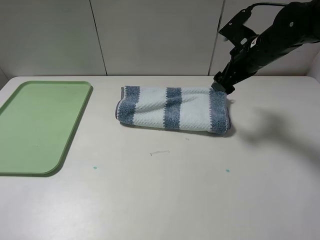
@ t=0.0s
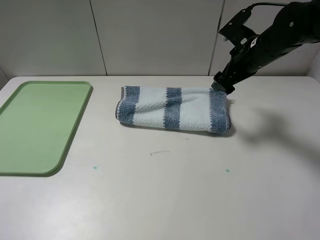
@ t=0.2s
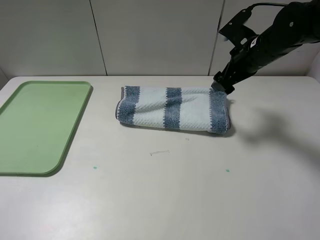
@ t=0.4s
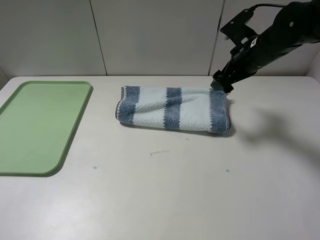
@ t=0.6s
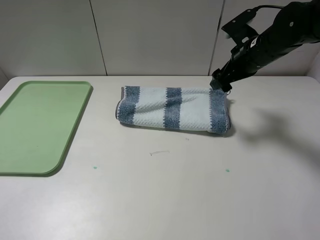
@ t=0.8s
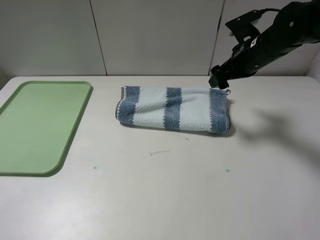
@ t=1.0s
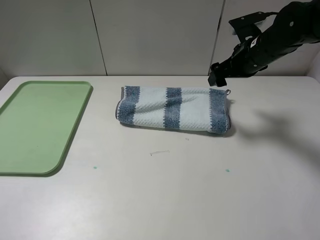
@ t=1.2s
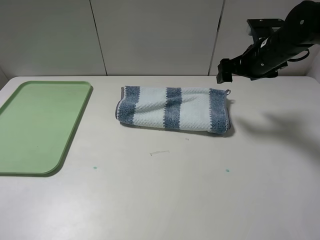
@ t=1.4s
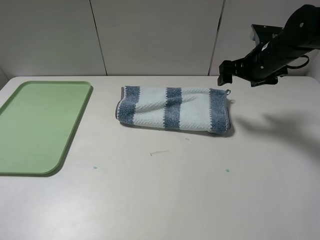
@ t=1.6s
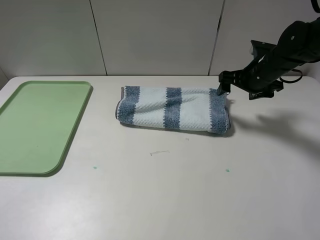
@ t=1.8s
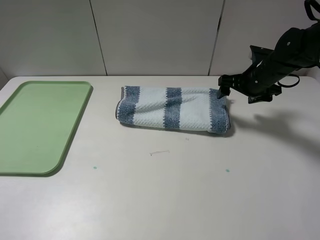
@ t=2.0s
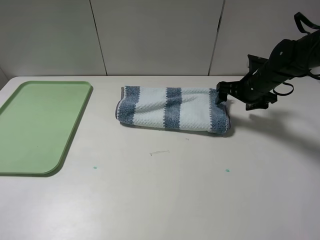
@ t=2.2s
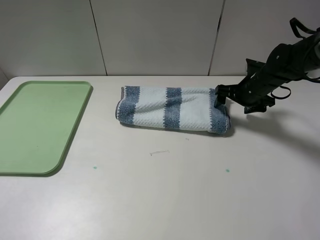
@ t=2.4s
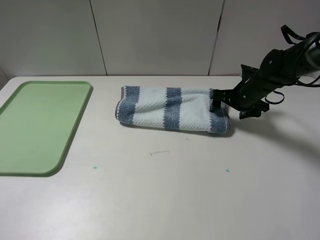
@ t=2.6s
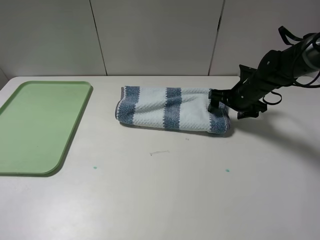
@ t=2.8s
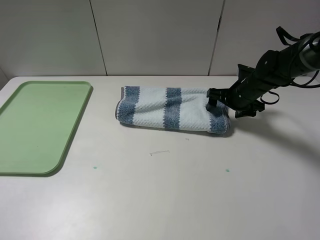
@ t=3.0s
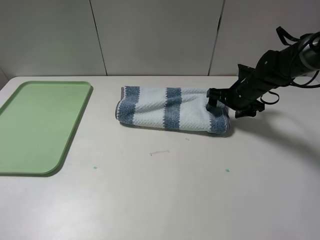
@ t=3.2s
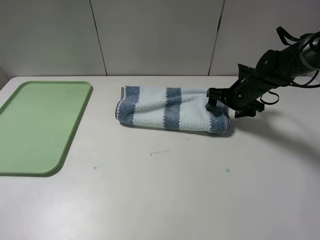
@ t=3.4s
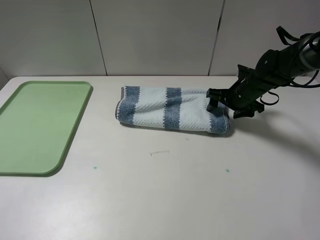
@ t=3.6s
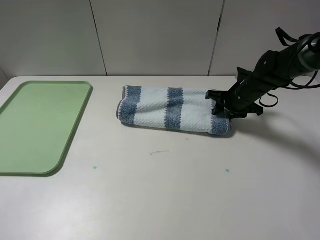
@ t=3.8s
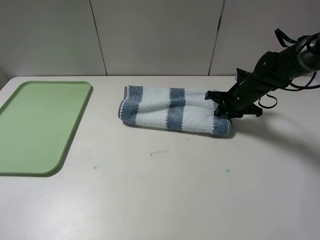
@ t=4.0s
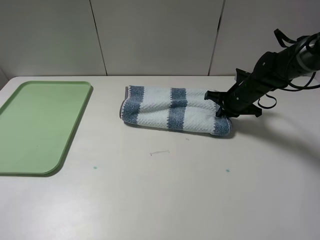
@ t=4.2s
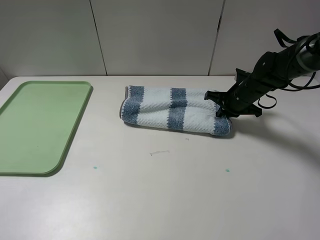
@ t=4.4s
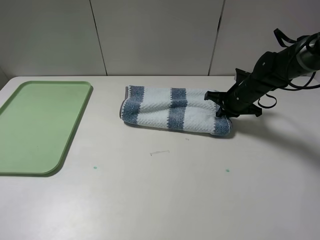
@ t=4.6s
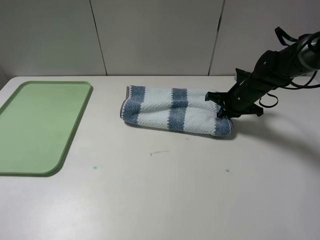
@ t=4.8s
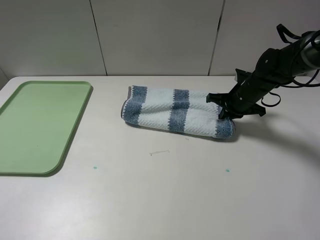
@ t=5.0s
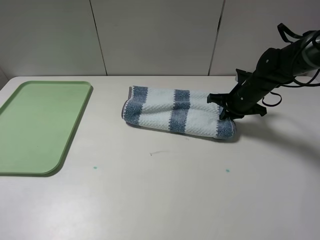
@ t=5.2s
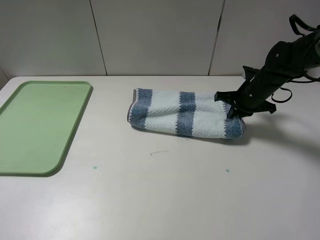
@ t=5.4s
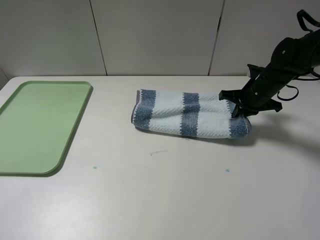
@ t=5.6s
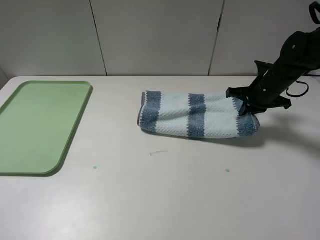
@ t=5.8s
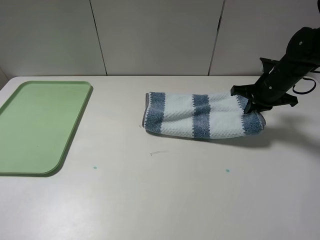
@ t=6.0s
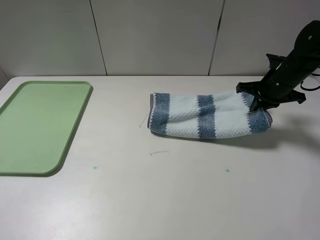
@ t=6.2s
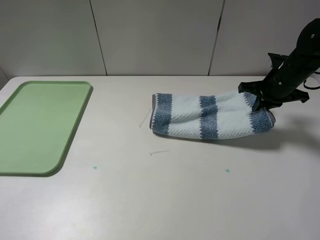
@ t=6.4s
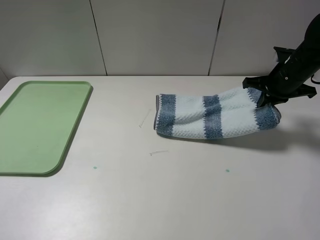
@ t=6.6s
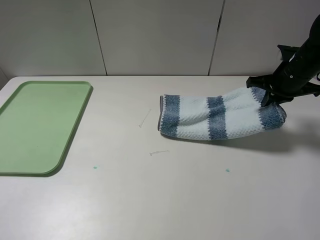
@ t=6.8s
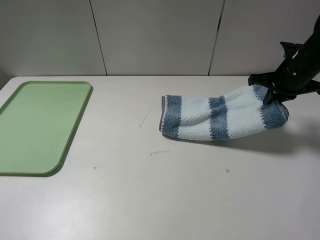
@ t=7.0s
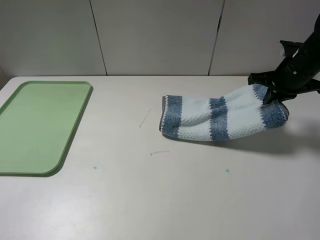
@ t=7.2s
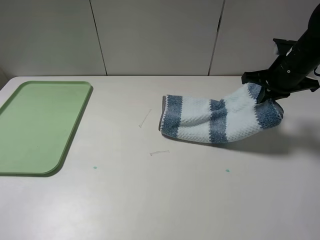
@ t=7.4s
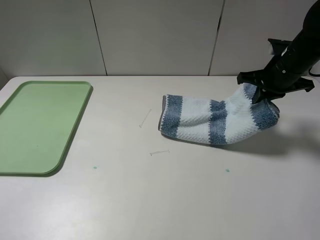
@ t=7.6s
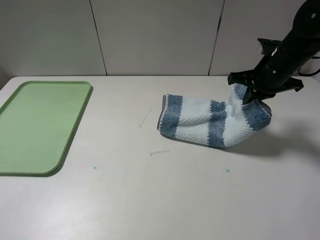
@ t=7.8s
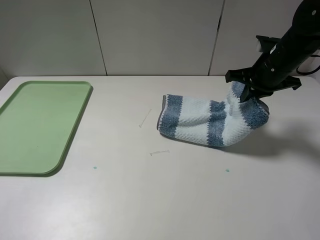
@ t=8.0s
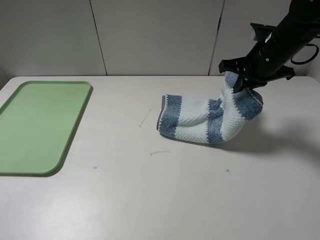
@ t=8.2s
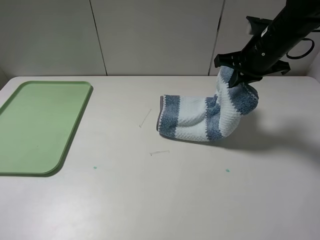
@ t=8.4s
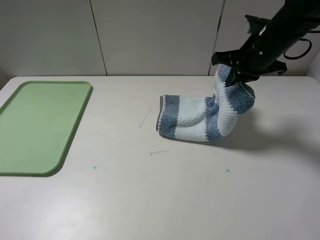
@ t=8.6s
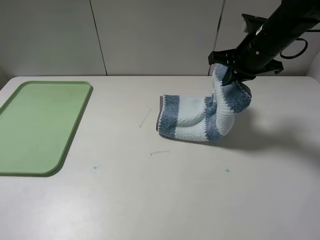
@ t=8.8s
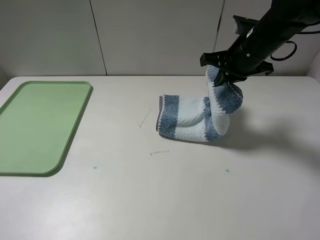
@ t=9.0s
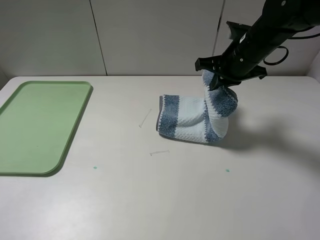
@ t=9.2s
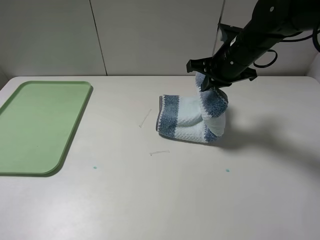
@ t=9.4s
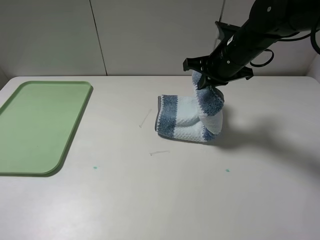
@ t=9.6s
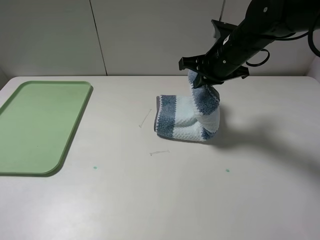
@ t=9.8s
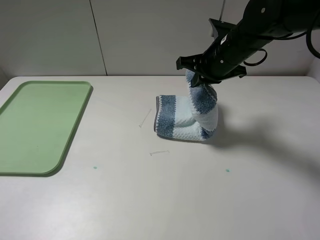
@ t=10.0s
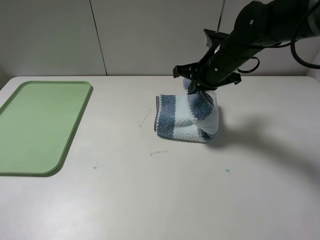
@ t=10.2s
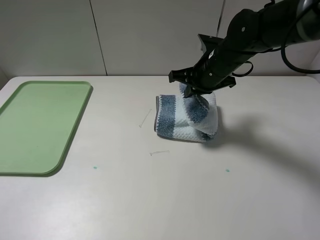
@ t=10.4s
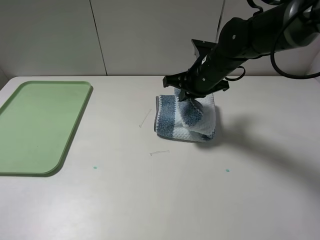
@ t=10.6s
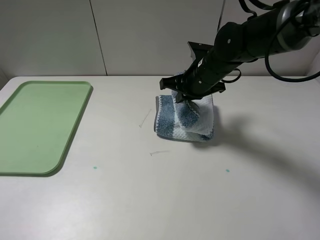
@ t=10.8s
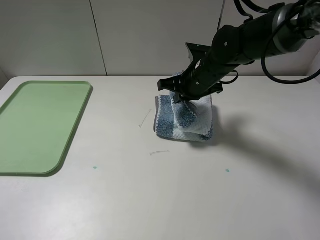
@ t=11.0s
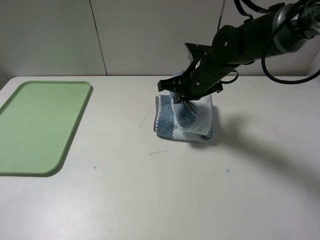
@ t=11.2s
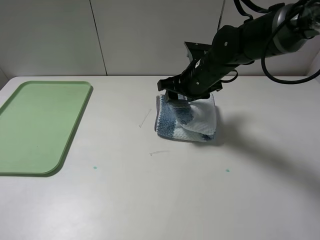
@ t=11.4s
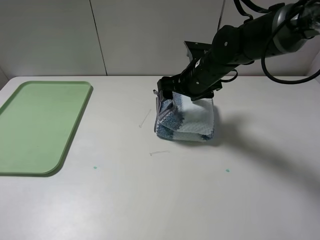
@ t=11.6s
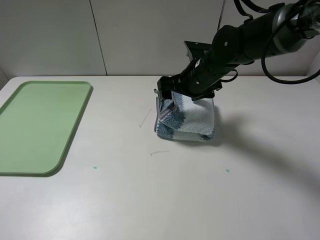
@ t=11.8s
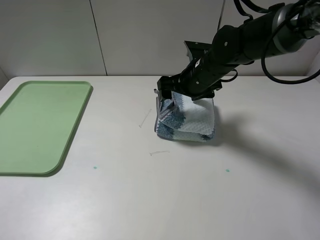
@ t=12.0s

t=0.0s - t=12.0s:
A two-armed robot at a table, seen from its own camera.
Step, t=0.0s - t=4.6s: Grasp the blue white towel with the right gripper.
t=1.6s - t=3.0s: The right gripper moves downward, some 10 cm.
t=3.0s - t=4.4s: The right gripper closes up.
t=4.4s - t=6.0s: The right gripper travels upward and to the right by about 10 cm.
t=6.0s - t=7.6s: The right gripper heads upward, covering about 5 cm.
t=7.6s - t=9.0s: The right gripper shifts approximately 10 cm to the left.
t=9.0s - t=10.4s: The right gripper is displaced to the left by some 5 cm.
t=10.4s - t=12.0s: The right gripper opens.

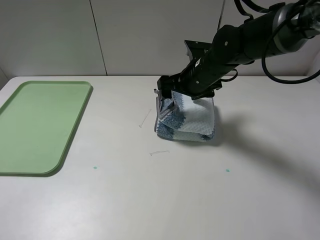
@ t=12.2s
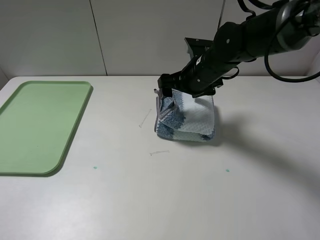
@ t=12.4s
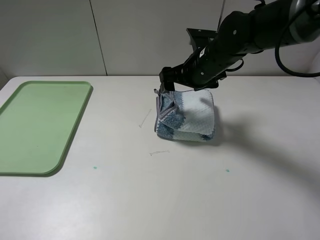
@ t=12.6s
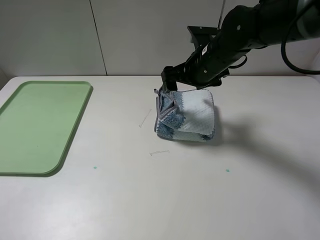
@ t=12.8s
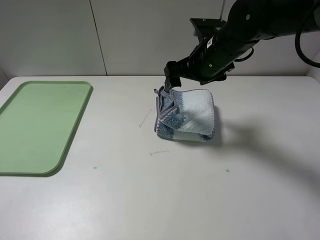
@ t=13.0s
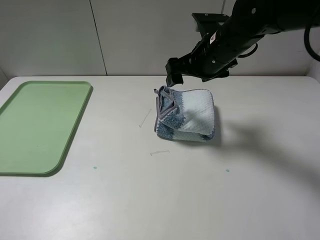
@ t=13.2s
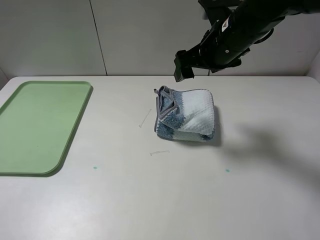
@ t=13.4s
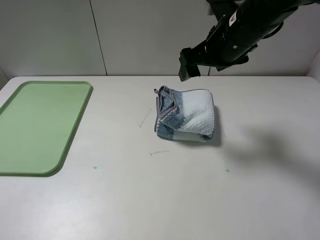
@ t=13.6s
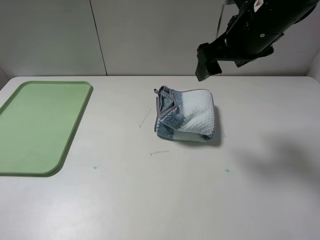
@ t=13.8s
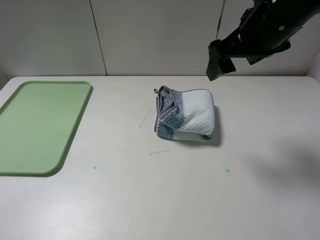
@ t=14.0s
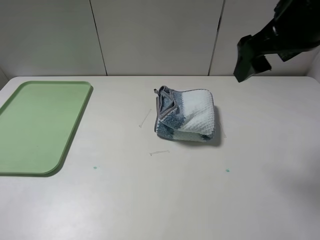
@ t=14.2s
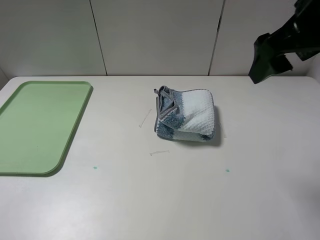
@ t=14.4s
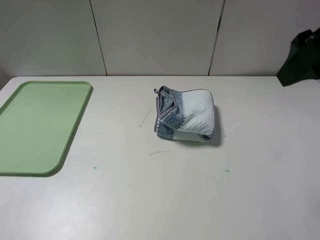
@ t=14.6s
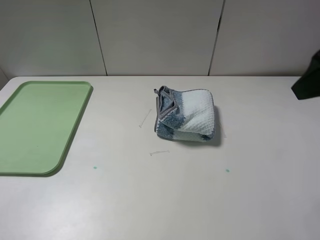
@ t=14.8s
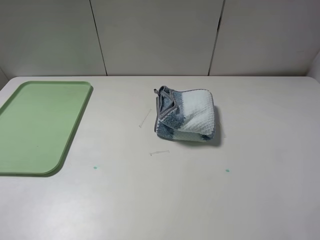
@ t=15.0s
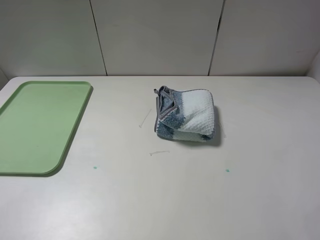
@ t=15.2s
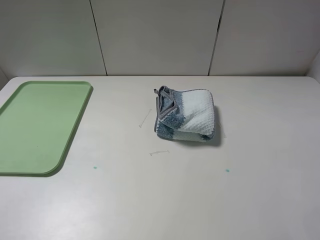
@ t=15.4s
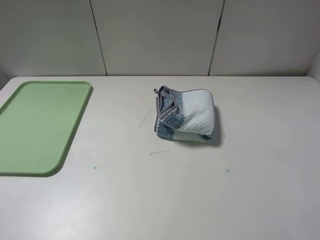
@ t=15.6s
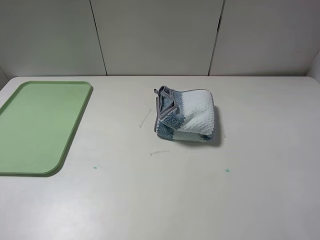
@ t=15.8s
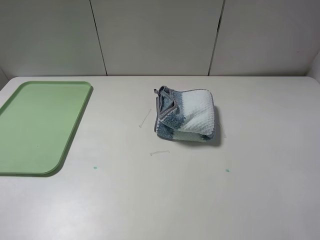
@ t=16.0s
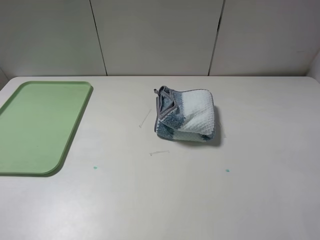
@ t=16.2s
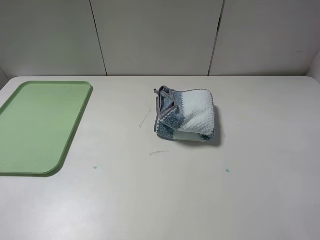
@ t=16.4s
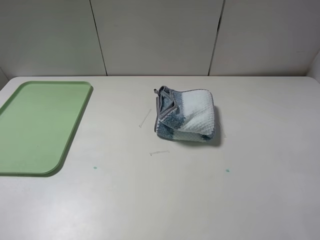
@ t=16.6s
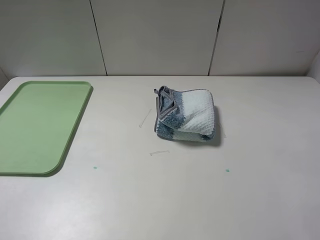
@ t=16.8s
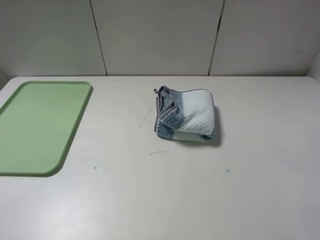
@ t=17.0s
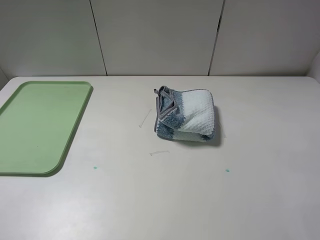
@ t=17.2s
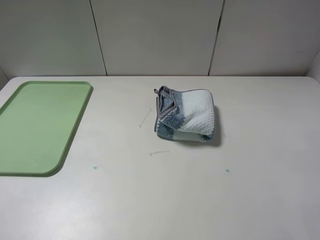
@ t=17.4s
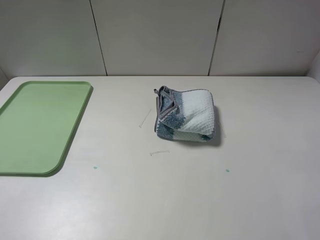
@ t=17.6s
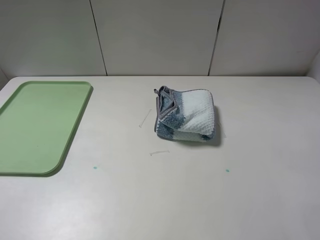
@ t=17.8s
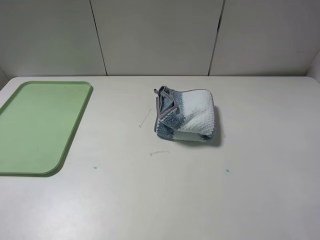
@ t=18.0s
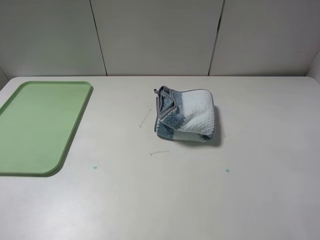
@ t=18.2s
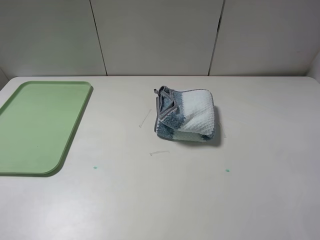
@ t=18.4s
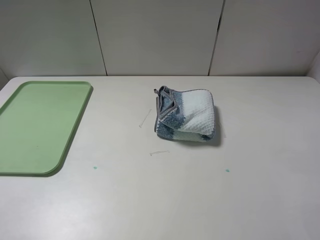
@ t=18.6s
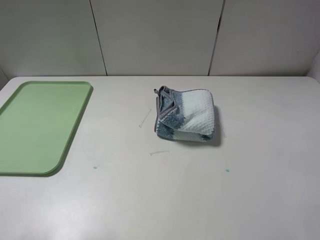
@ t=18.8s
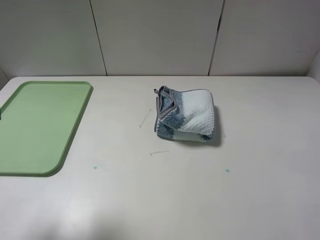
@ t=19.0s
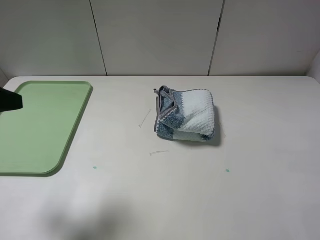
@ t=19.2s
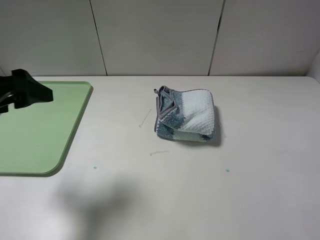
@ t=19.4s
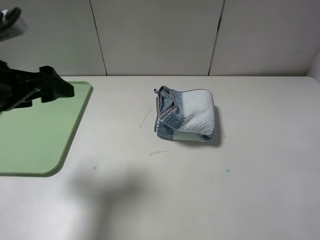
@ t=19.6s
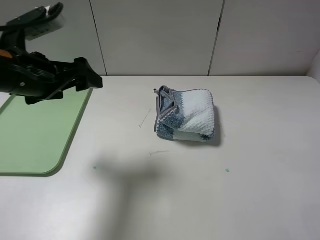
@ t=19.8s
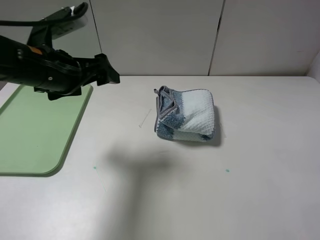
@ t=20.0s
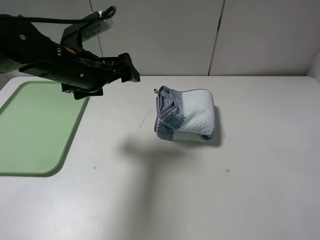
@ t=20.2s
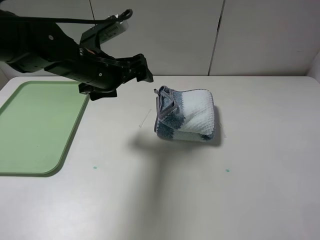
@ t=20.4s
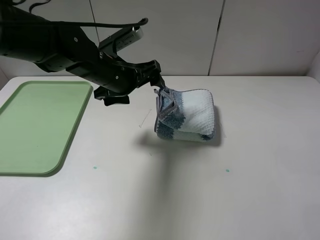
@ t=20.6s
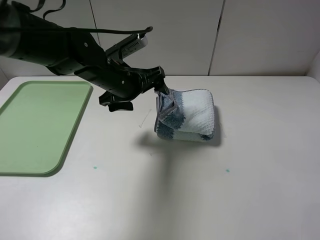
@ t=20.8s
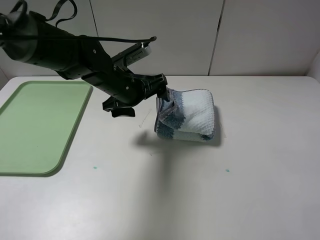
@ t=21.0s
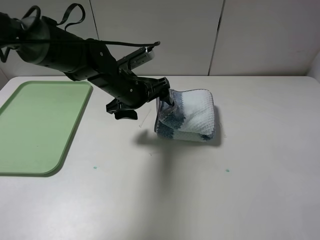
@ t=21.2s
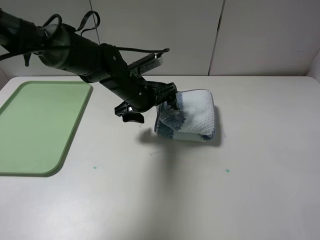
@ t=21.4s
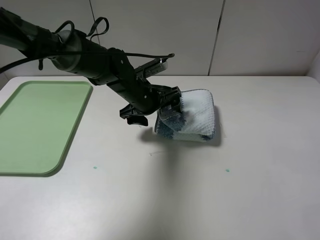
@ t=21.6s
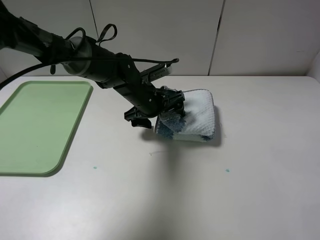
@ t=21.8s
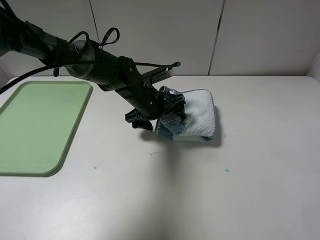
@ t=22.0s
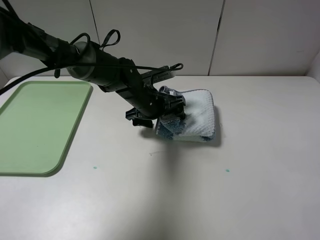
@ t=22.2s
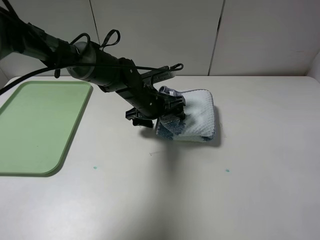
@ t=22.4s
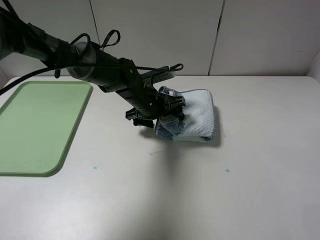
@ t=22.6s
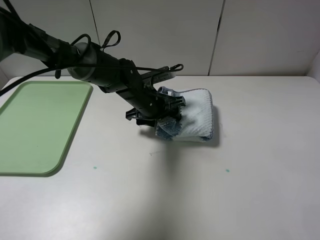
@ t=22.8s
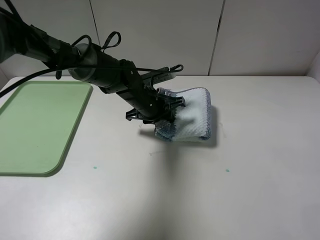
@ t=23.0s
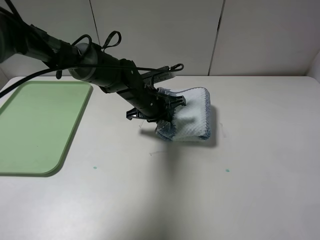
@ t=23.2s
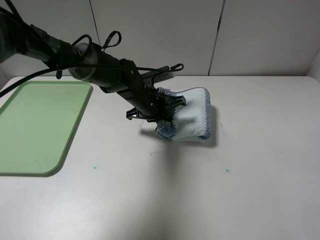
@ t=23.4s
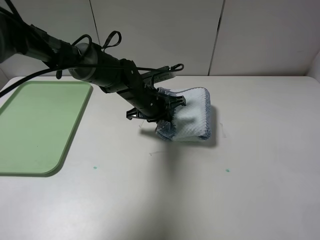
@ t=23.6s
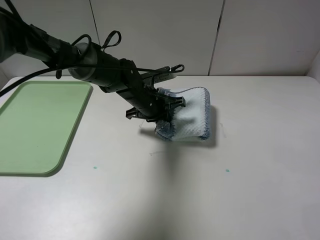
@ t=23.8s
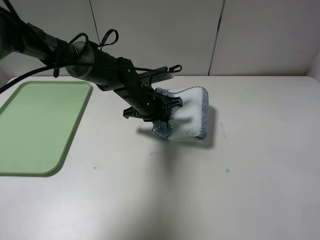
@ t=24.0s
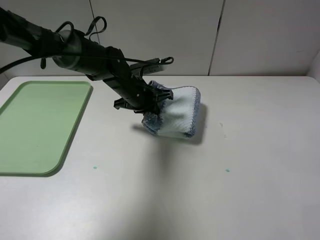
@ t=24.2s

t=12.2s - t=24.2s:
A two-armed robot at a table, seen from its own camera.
Step, t=13.0s - t=23.2s: Grasp the blue white towel with the left gripper.
t=12.2s - t=13.8s: The right gripper heads upward and backward, covering some 15 cm.
t=13.8s - t=15.2s: The right gripper travels backward and to the right by roughly 25 cm.
t=16.6s - t=18.2s: Both grippers stay put.
t=18.2s - t=19.8s: The left gripper goes some 30 cm forward and to the right.
t=19.8s - t=21.2s: The left gripper shifts about 20 cm to the right, downward and forward.
t=21.2s - t=22.6s: The left gripper changes place by about 5 cm.
t=22.6s - t=24.2s: The left gripper closes up.
